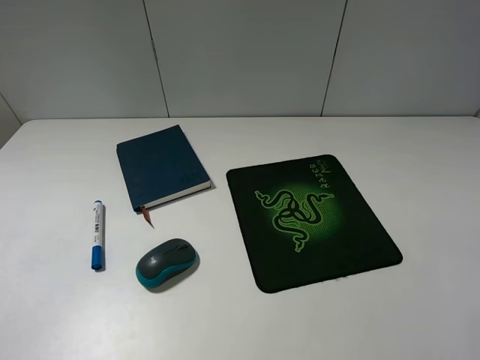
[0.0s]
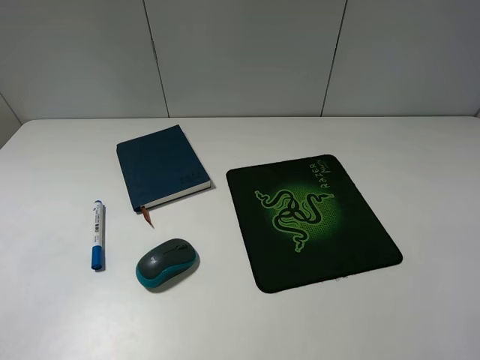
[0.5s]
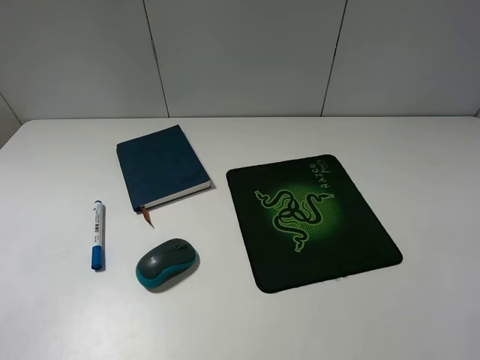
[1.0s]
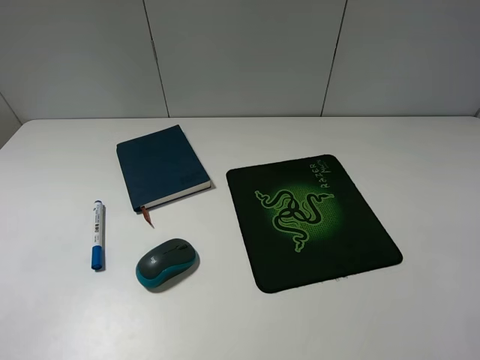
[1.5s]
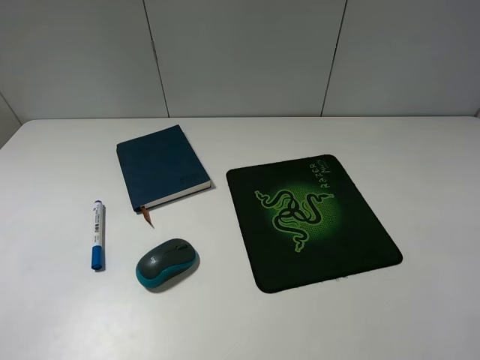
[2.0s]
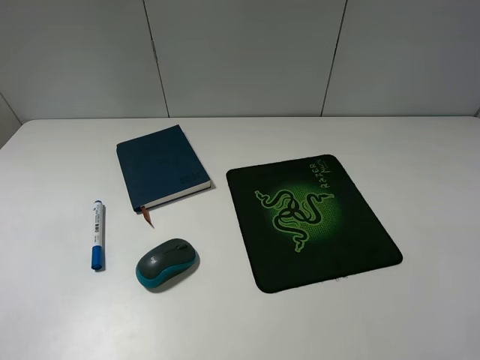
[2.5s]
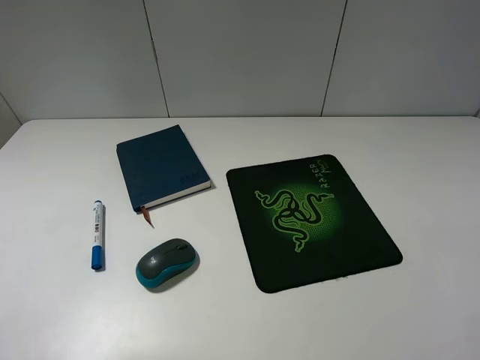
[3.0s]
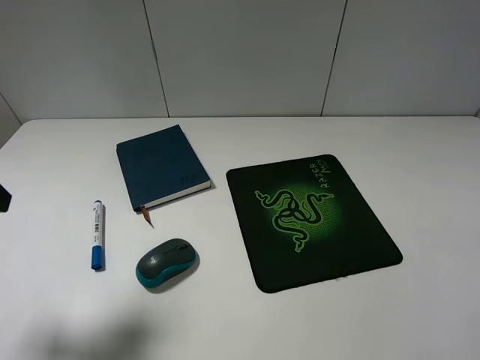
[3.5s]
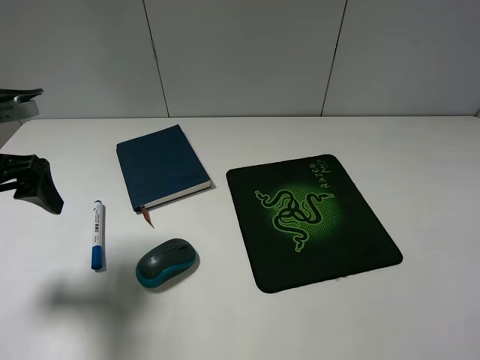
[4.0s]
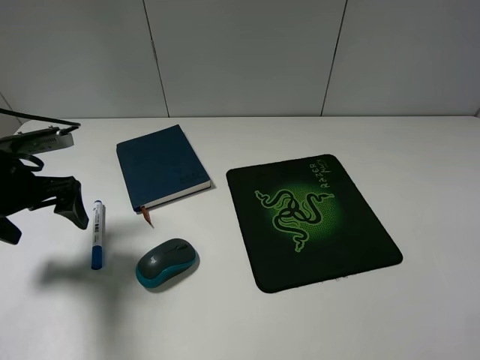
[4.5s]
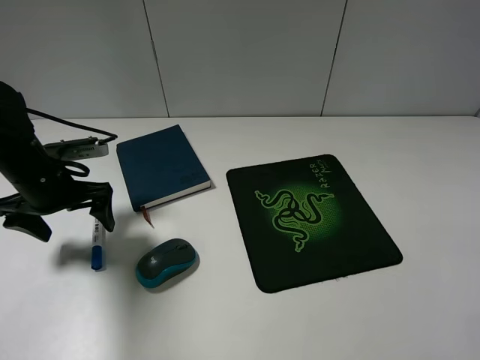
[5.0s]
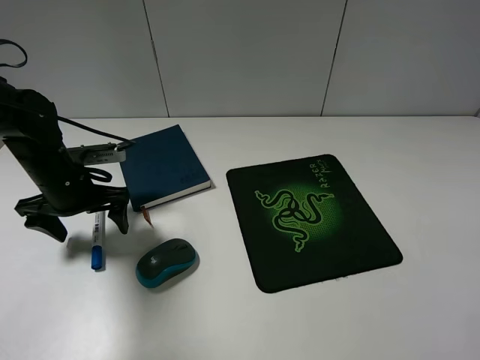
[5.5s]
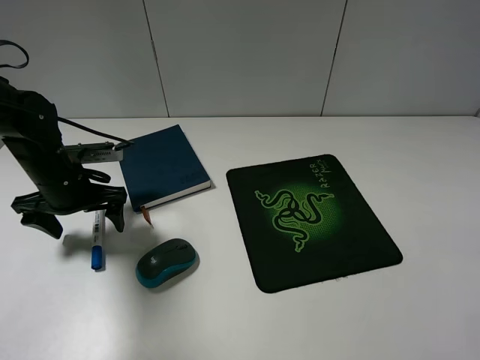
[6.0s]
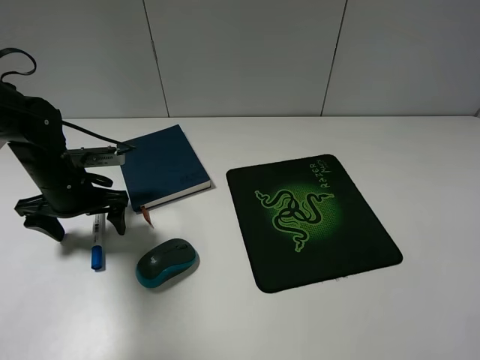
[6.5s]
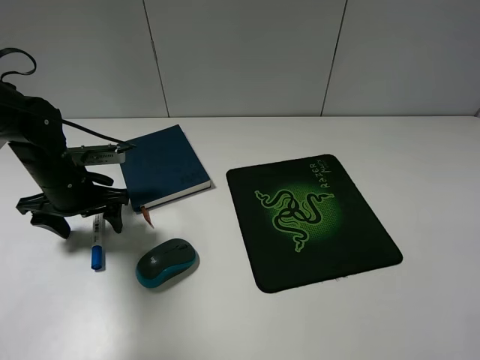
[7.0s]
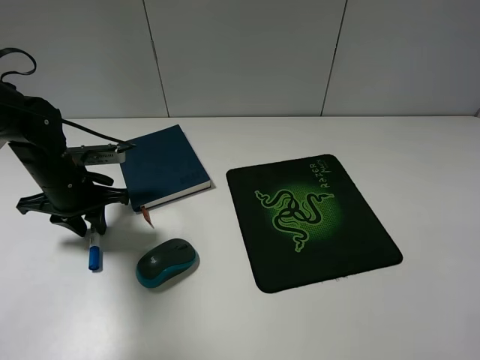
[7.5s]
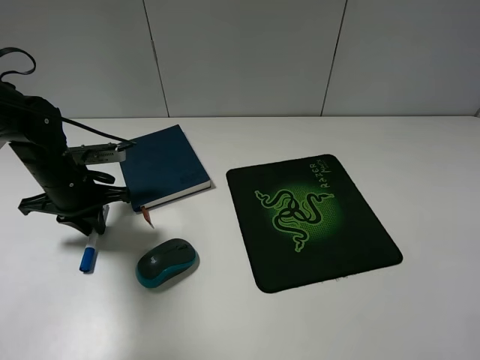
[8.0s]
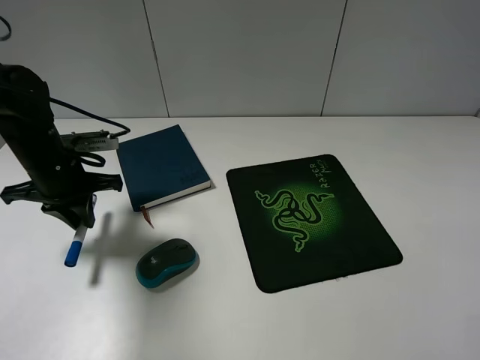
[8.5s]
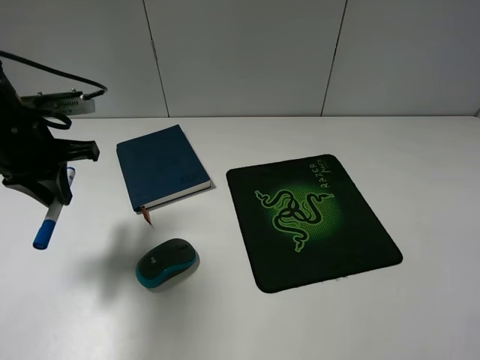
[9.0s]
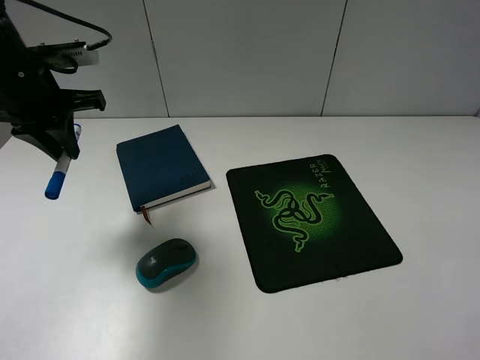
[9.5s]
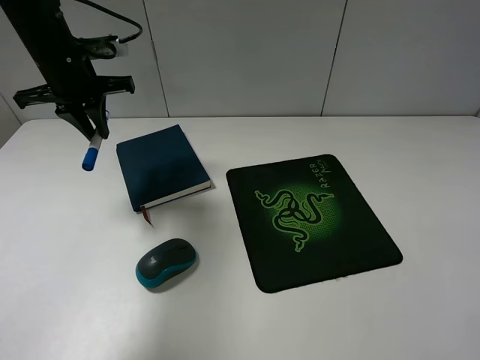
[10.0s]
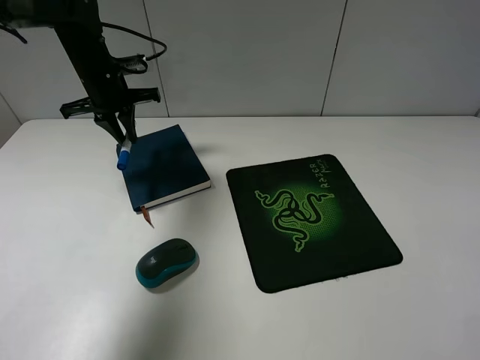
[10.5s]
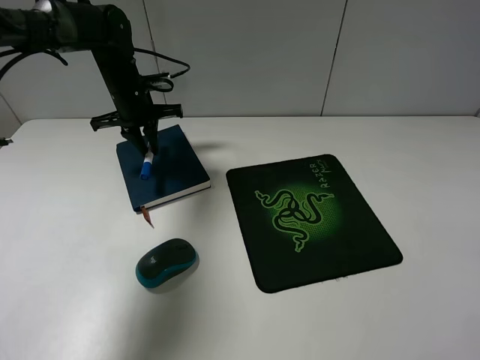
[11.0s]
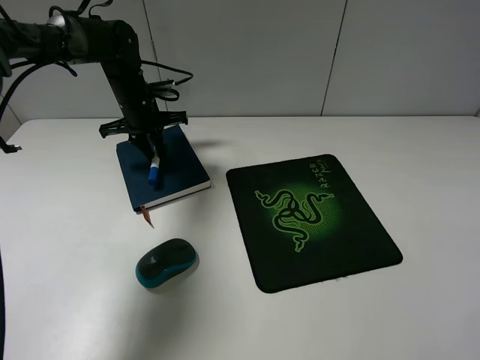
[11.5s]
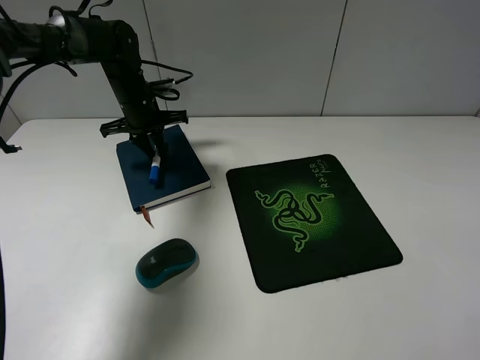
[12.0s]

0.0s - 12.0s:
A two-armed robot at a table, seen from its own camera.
Step, 0.0s - 8.0s: Grasp the marker with the left gripper.
0.0s - 2.0s: Neither gripper changes place.
2.0s - 4.0s: The left gripper moves forward, about 25 cm.
4.0s - 6.0s: The left gripper travels downward and forward by about 15 cm.
6.0s - 8.0s: The left gripper closes its fingers.
8.0s - 10.0s: The left gripper heads upward and forward, covering approximately 15 cm.
10.0s - 12.0s: The left gripper is displaced downward, forward and to the right by roughly 15 cm.

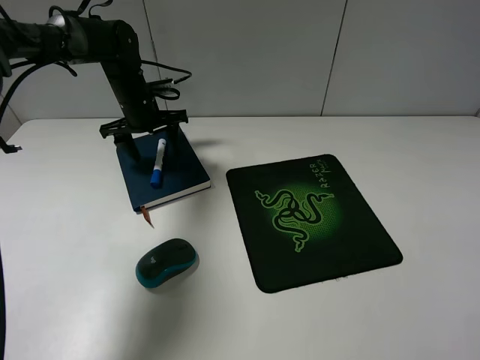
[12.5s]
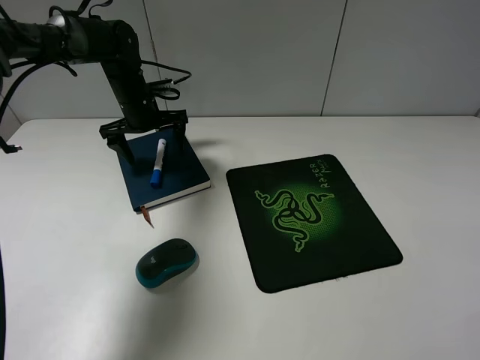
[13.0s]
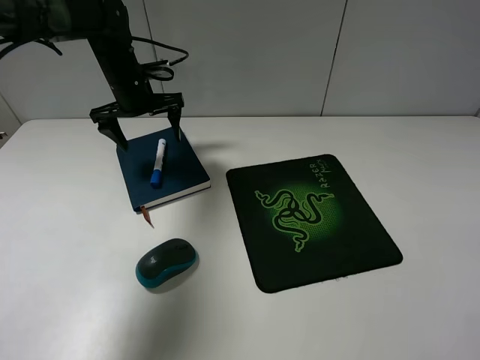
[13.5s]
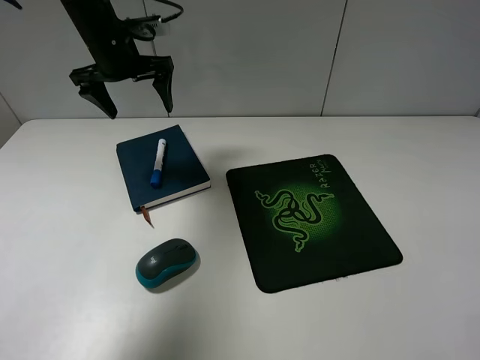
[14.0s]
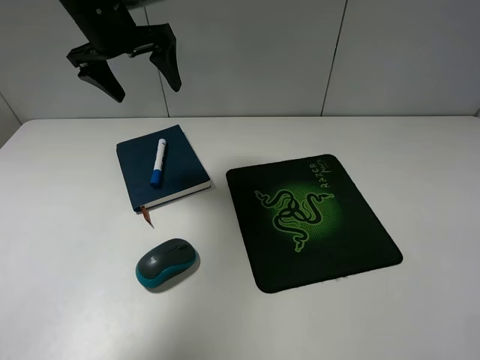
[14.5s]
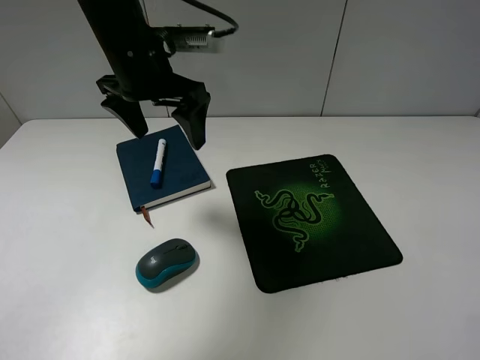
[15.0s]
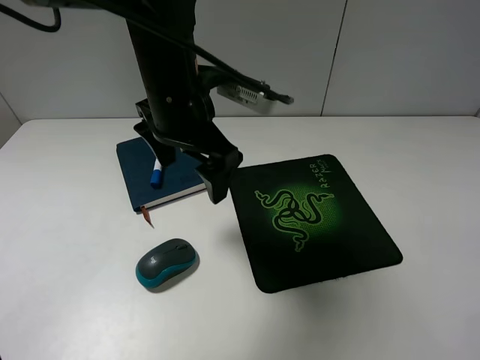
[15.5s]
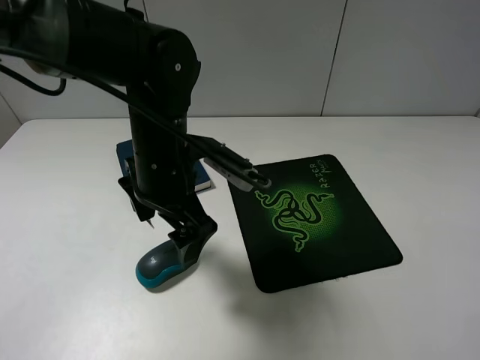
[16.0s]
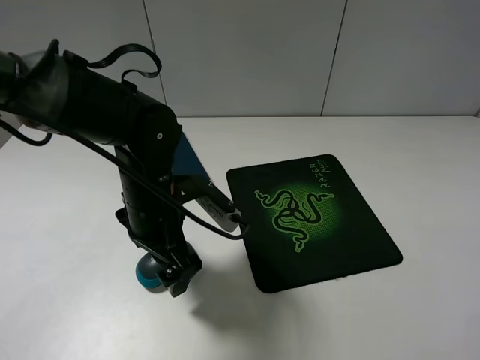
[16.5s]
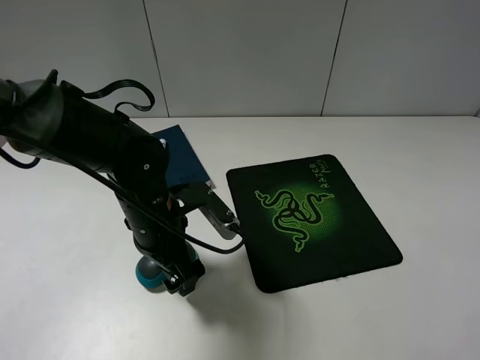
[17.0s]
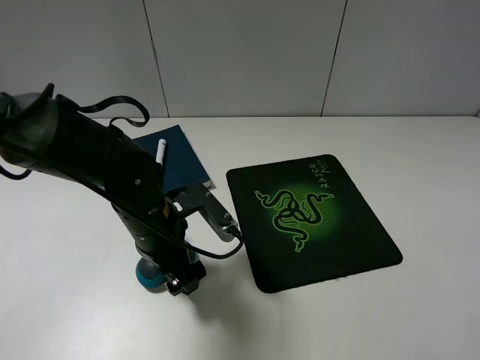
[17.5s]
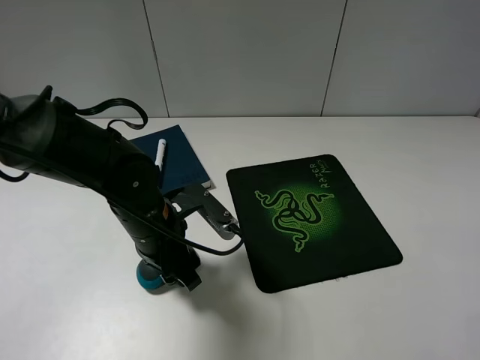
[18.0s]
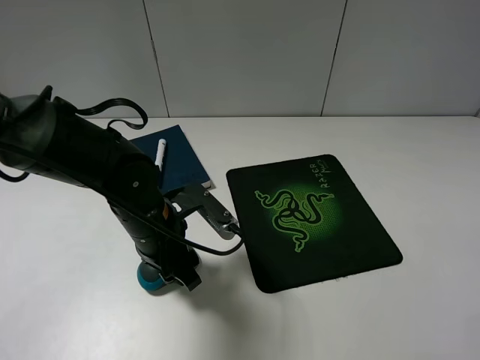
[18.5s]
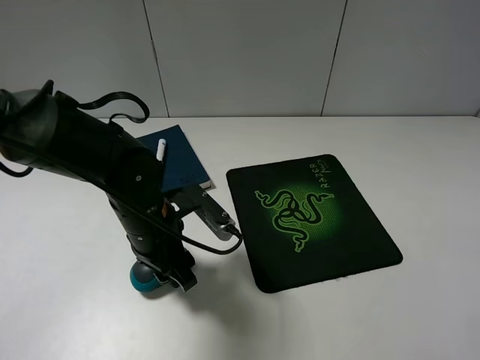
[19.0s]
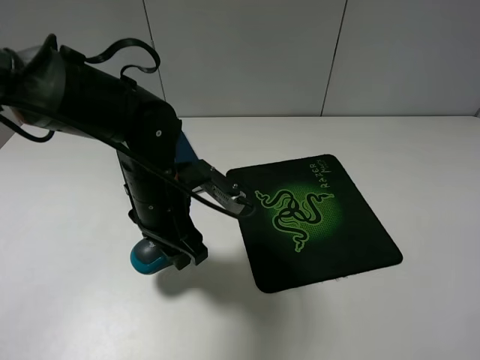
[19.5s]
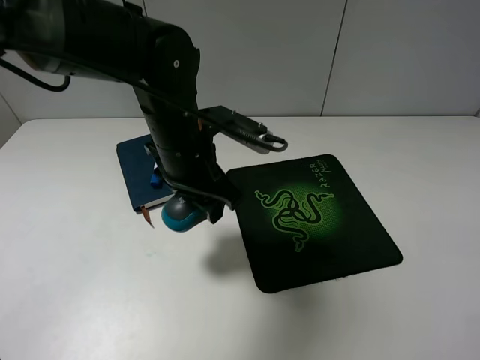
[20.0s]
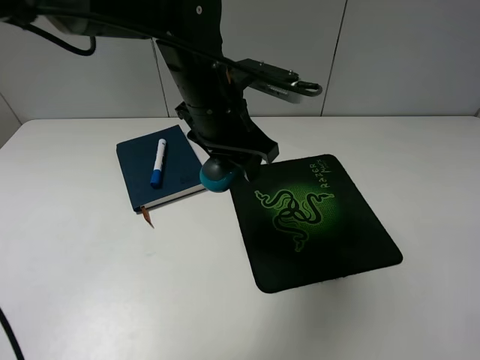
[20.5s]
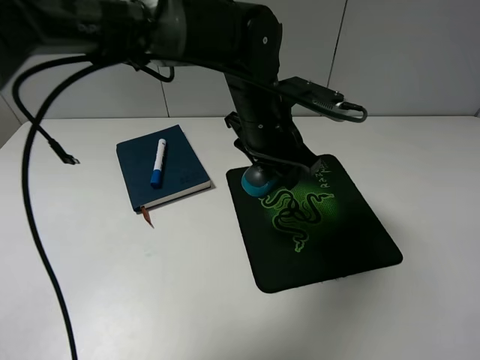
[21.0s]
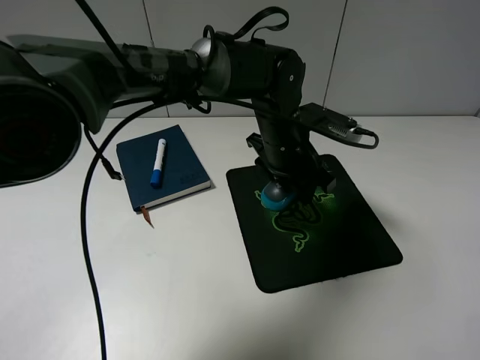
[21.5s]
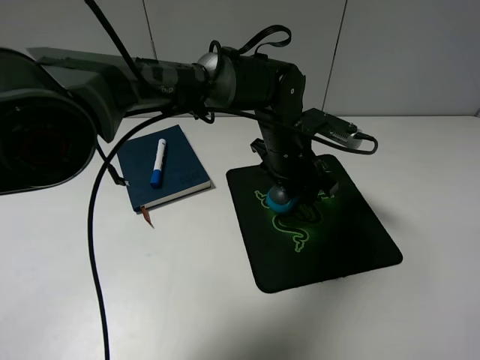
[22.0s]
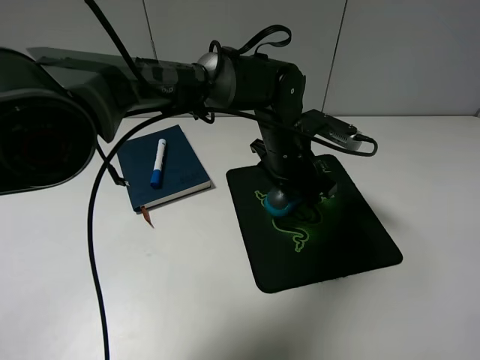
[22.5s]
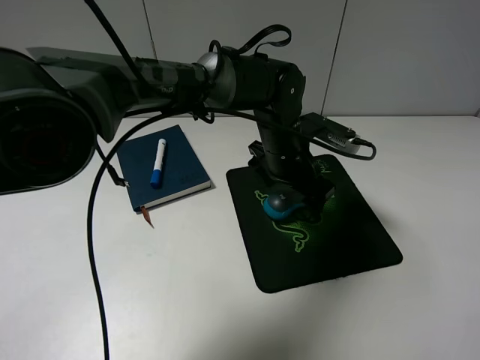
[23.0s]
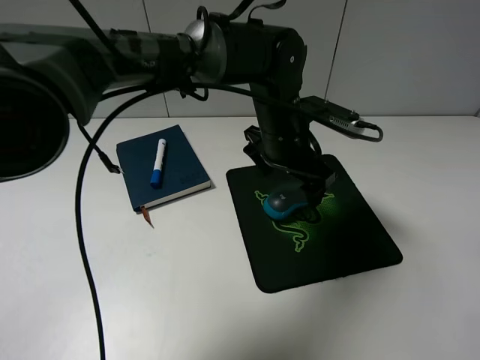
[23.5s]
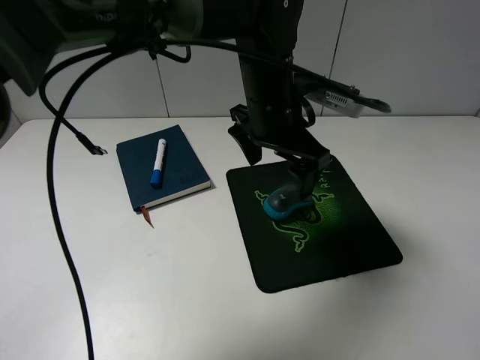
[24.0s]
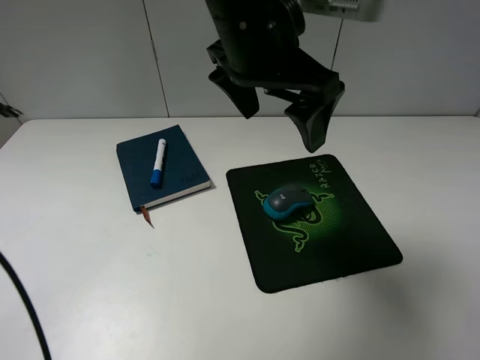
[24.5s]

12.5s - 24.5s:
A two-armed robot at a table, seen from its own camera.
Step, 13.0s - 18.0s: Grasp the mouse with the left gripper.
Step, 18.5s - 23.0s: Place the mouse on the mouse pad with the left gripper.
12.5s - 14.5s: The left gripper goes approximately 15 cm upward and backward.
14.5s - 16.5s: The left gripper shifts some 25 cm backward, downward and to the right.
16.5s - 18.5s: The left gripper closes.
18.5s - 20.5s: The left gripper travels upward, forward and to the right by roughly 15 cm.
20.5s - 22.5s: The left gripper heads to the right and downward, covering some 15 cm.
22.5s - 24.5s: The left gripper travels upward by some 20 cm.

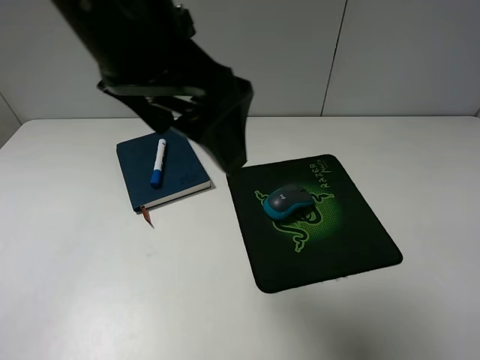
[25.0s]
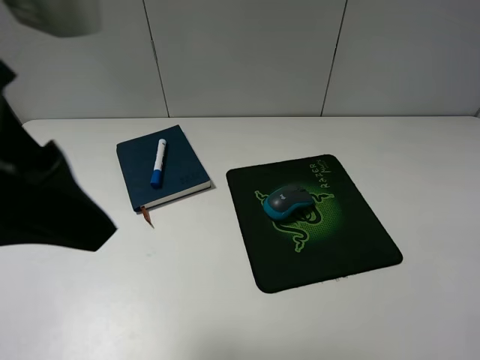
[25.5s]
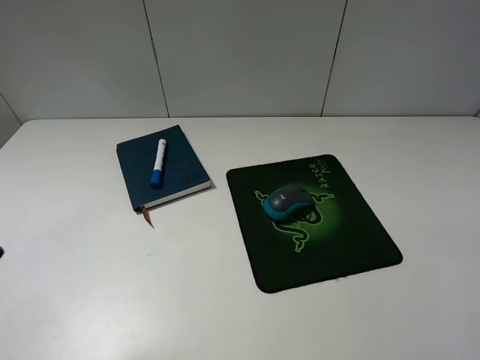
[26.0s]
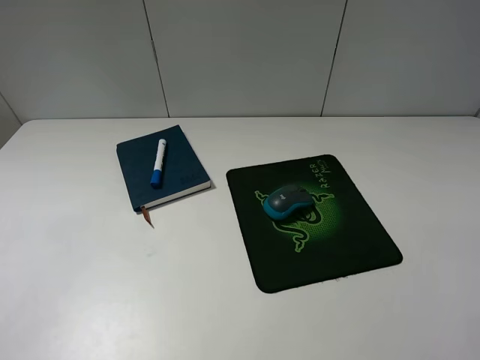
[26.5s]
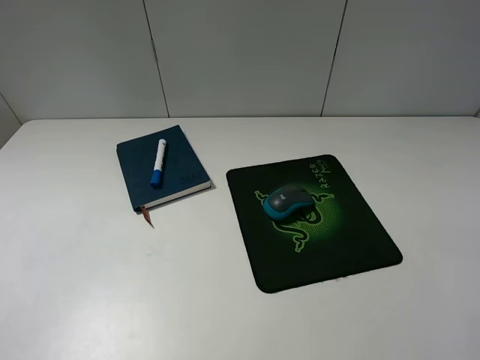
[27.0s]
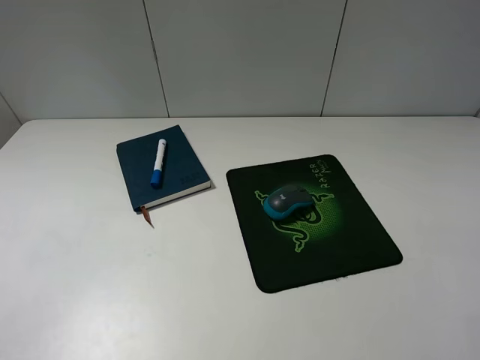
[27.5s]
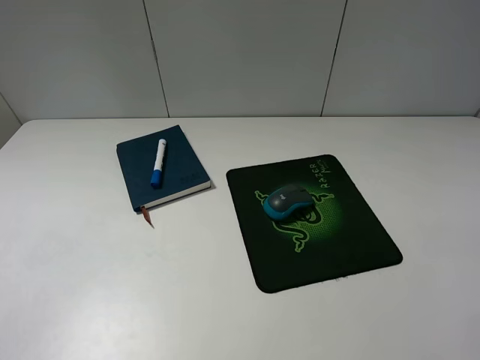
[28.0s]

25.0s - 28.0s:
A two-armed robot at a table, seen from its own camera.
25.0s - 26.5s: The left gripper heads to the left and backward, covering roughly 30 cm.
